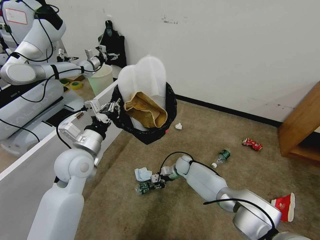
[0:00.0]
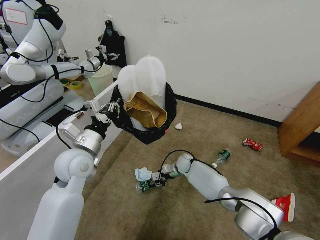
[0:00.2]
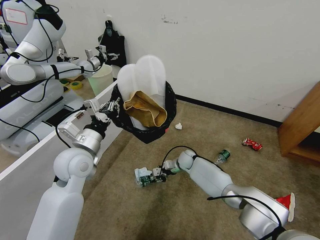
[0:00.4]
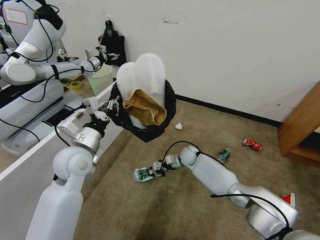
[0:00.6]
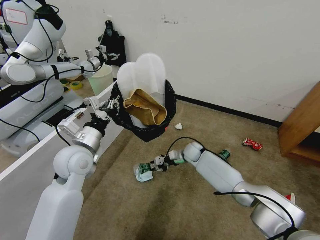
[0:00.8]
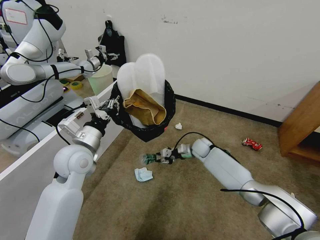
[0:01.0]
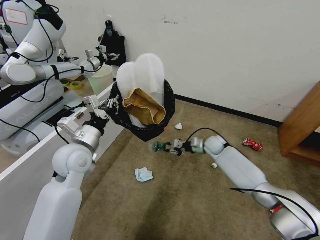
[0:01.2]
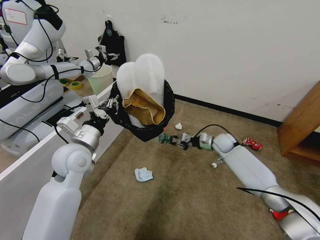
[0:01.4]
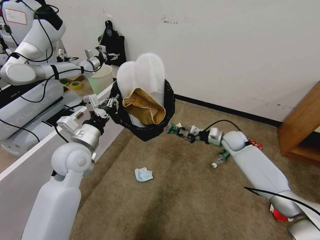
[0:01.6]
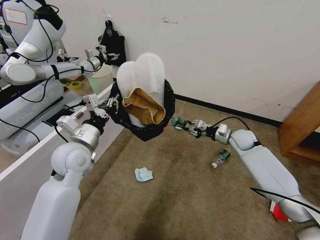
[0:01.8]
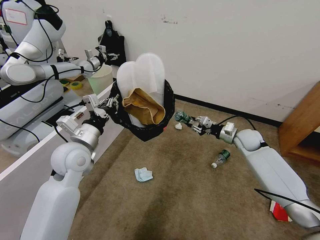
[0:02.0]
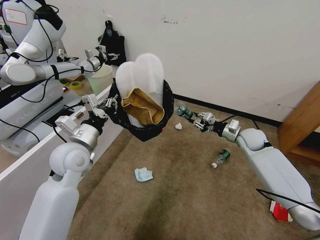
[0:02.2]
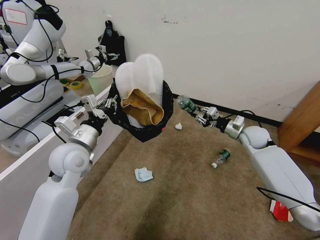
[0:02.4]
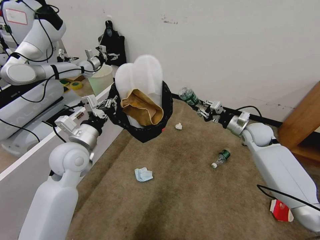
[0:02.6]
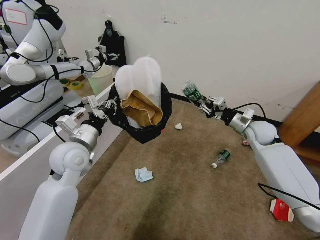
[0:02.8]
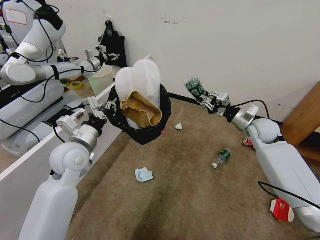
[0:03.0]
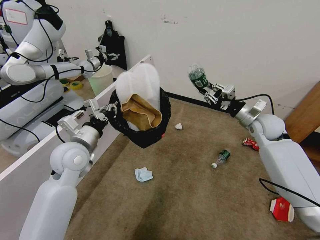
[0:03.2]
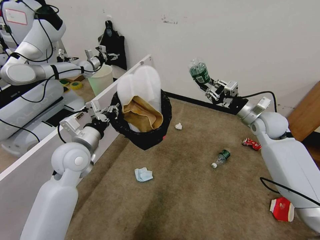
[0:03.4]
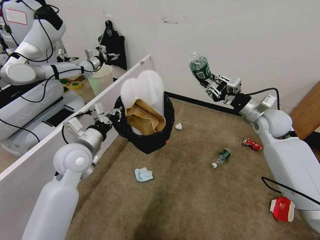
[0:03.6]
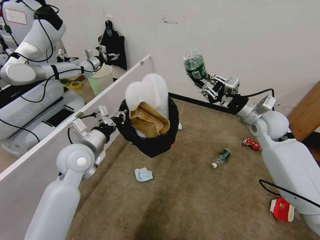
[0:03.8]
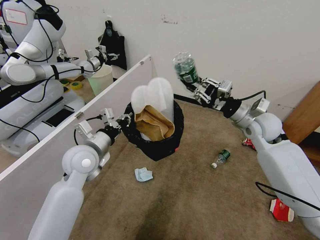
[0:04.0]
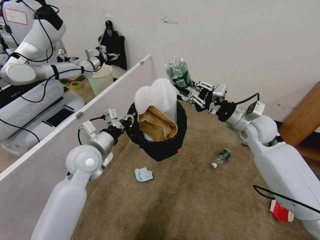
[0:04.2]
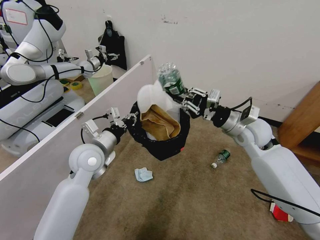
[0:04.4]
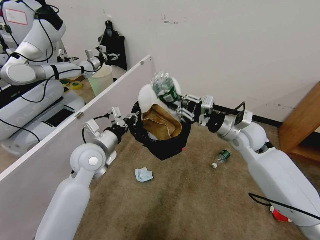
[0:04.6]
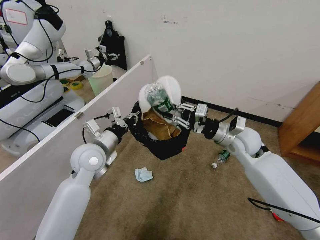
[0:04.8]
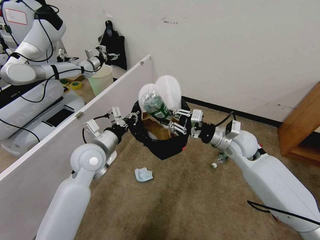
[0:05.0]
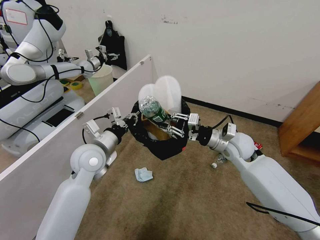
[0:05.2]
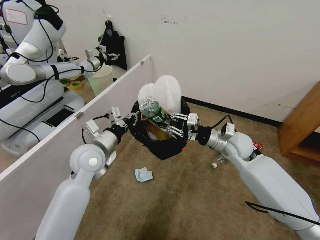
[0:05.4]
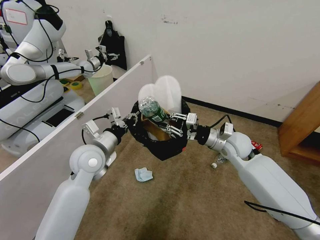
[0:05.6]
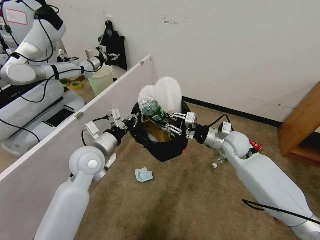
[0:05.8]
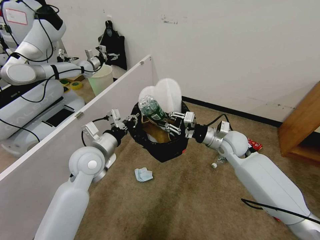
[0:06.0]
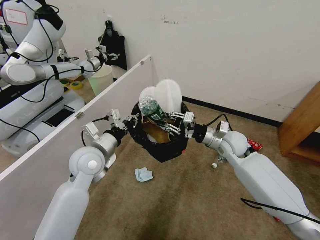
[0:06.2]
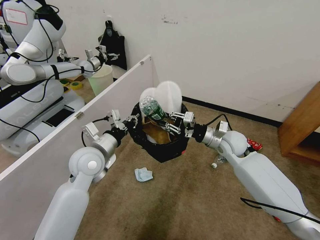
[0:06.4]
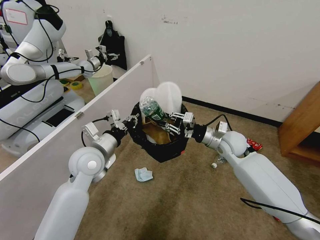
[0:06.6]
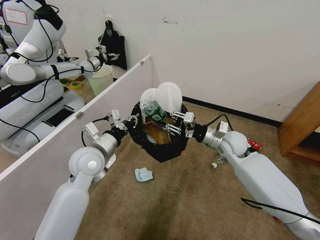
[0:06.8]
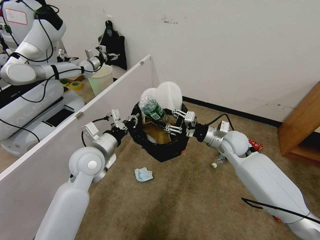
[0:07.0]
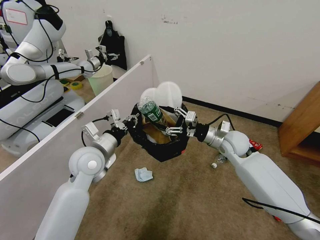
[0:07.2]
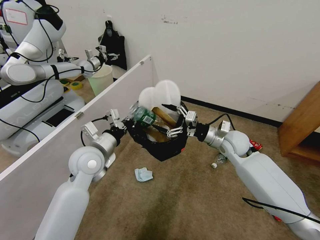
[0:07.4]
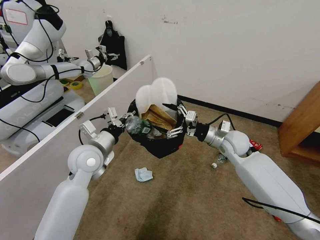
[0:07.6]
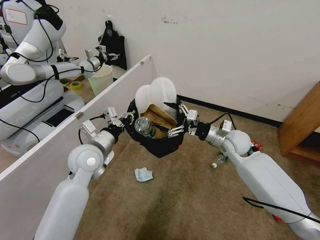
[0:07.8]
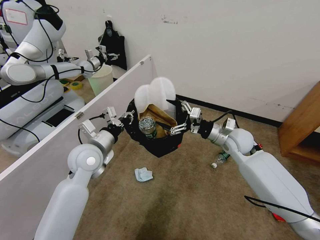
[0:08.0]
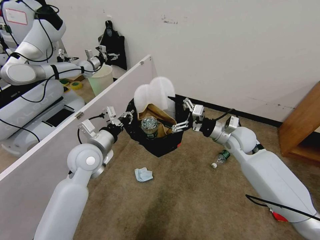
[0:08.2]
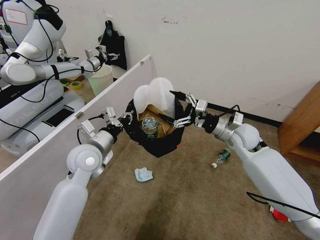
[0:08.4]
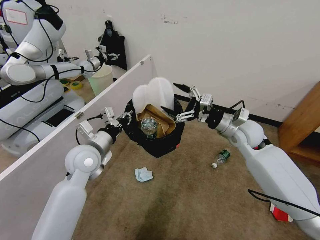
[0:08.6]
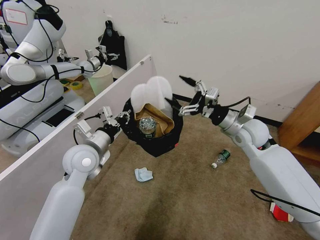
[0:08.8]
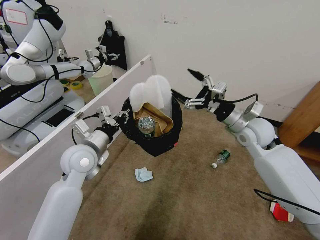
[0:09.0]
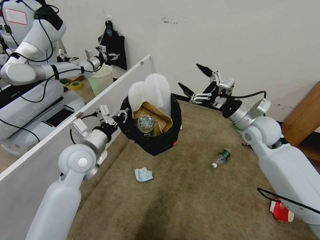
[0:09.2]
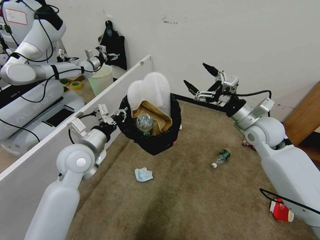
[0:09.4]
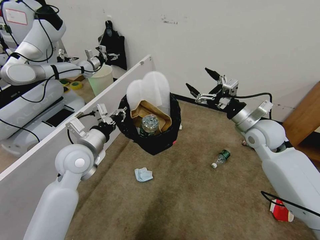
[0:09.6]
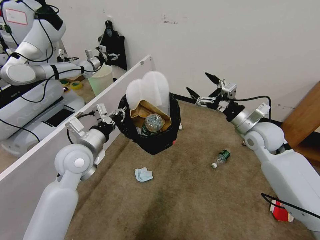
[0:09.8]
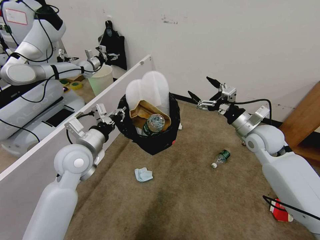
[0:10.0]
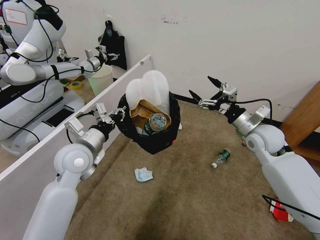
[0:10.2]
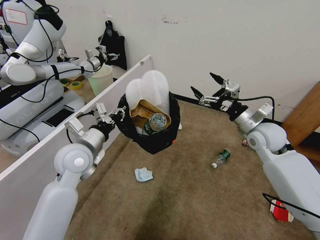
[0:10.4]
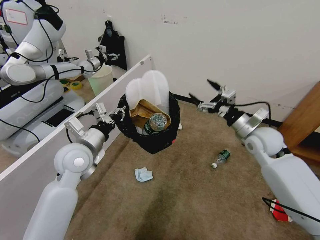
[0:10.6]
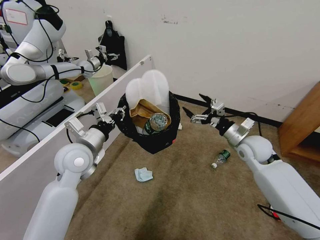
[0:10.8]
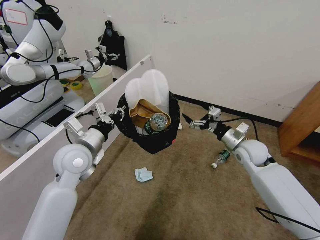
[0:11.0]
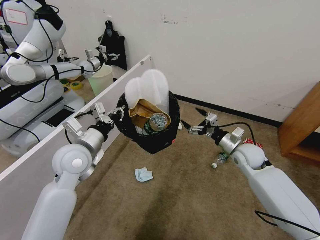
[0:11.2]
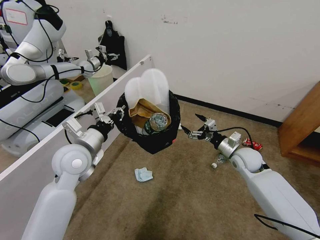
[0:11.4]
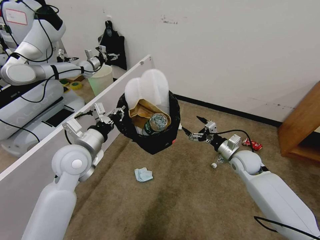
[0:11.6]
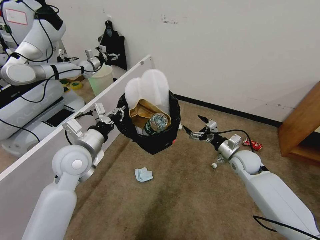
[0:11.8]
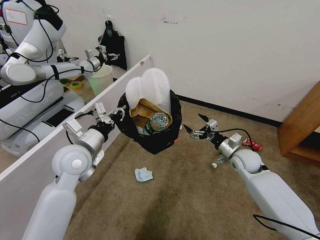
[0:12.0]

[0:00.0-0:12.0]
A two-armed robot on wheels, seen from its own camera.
Task of the whole recording: Pick up the trash bin, then pick up the garbage from the floor and place it into the trash bin.
0:00.0 to 0:01.6: The right gripper is displaced to the right and upward by some 25 cm.
0:01.6 to 0:03.0: The right gripper moves upward, roughly 10 cm.
0:03.0 to 0:04.4: The right gripper heads to the left and backward, covering approximately 10 cm.
0:04.4 to 0:06.0: The right gripper shifts roughly 5 cm downward.
0:06.0 to 0:07.6: The right gripper opens its fingers.
0:07.6 to 0:09.0: The right gripper goes roughly 5 cm upward.
0:09.0 to 0:10.4: The grippers move only a little.
0:10.4 to 0:12.0: The right gripper goes about 15 cm downward.

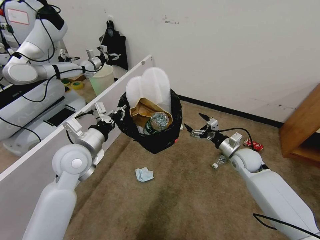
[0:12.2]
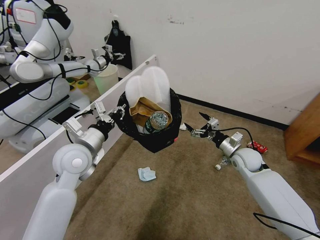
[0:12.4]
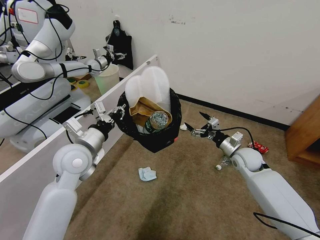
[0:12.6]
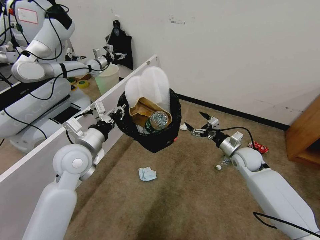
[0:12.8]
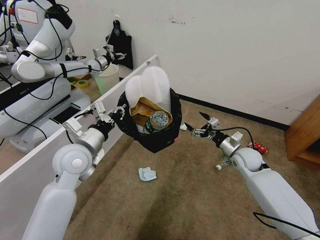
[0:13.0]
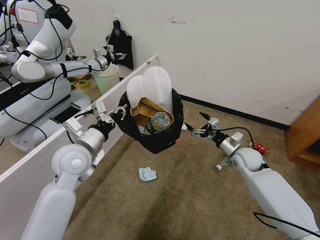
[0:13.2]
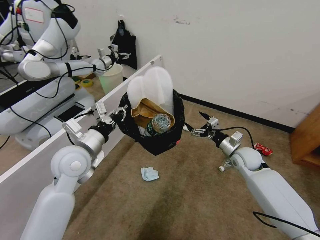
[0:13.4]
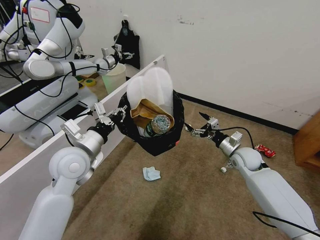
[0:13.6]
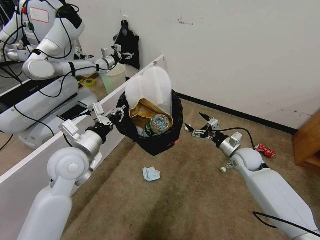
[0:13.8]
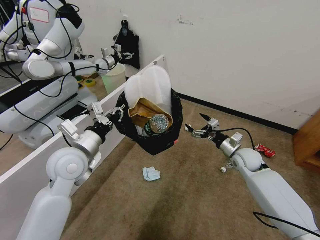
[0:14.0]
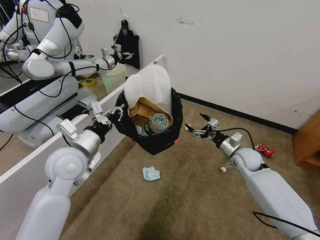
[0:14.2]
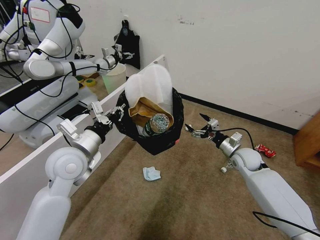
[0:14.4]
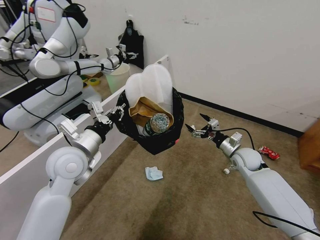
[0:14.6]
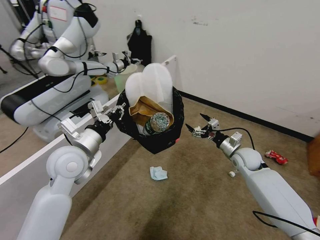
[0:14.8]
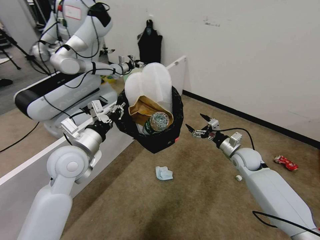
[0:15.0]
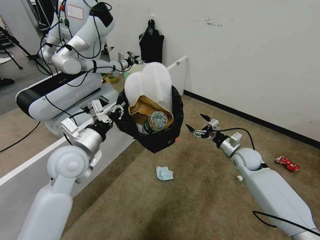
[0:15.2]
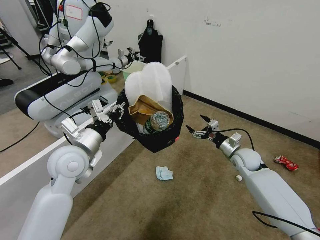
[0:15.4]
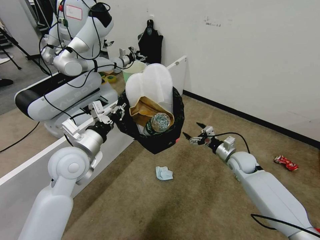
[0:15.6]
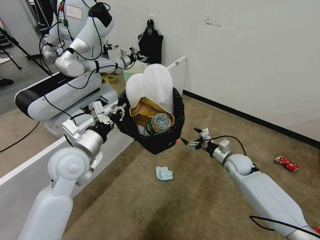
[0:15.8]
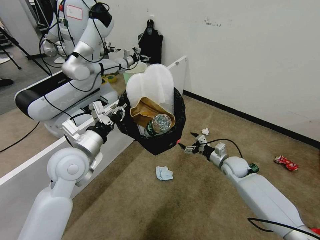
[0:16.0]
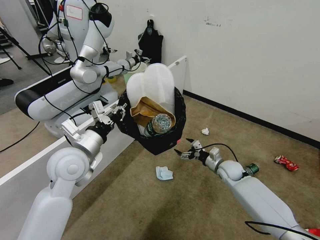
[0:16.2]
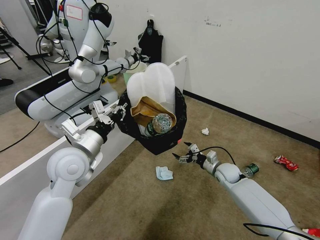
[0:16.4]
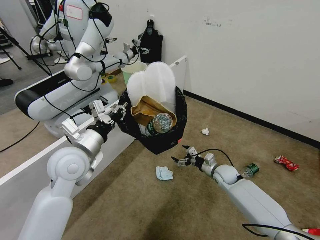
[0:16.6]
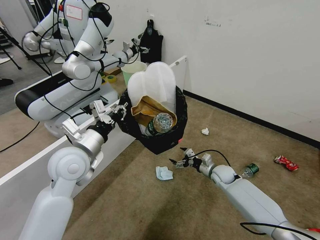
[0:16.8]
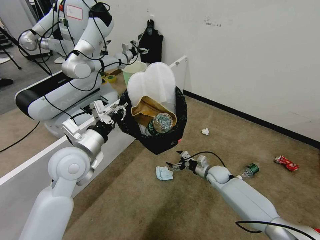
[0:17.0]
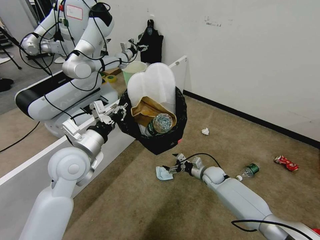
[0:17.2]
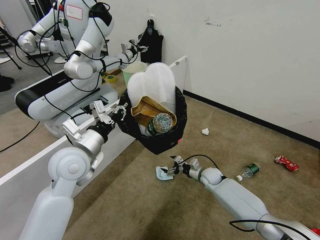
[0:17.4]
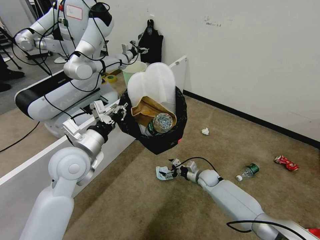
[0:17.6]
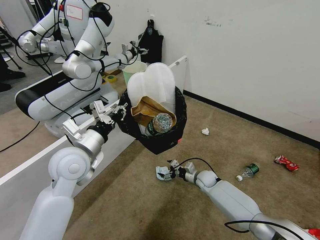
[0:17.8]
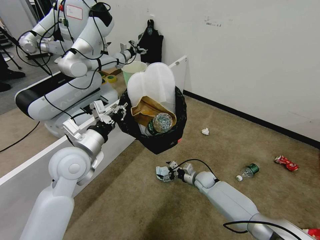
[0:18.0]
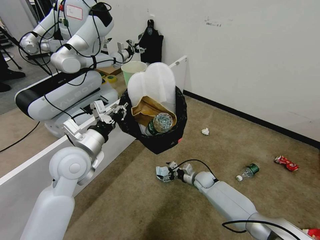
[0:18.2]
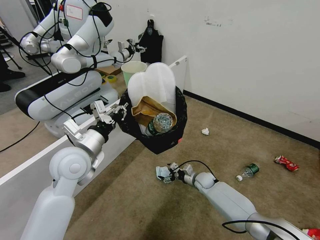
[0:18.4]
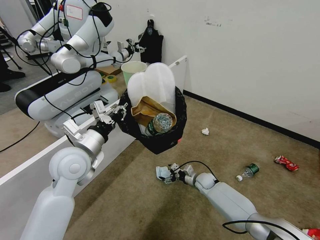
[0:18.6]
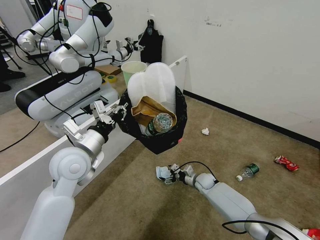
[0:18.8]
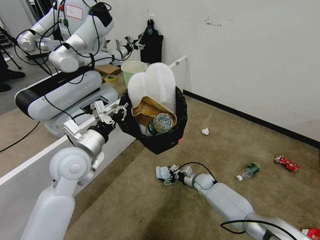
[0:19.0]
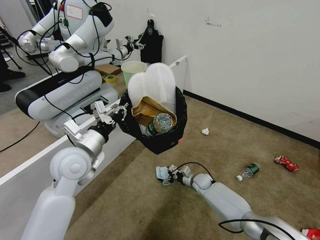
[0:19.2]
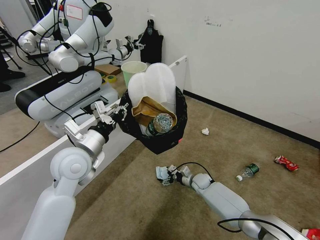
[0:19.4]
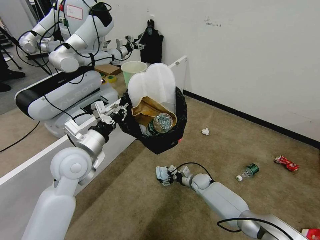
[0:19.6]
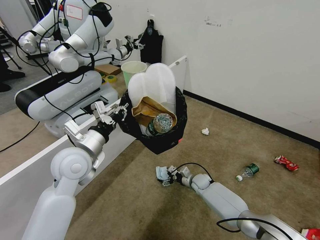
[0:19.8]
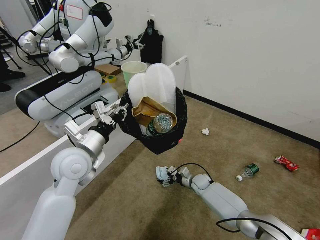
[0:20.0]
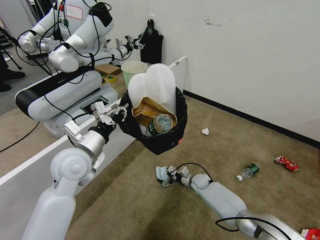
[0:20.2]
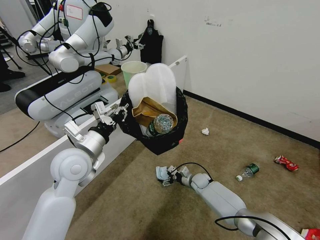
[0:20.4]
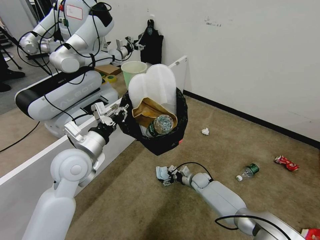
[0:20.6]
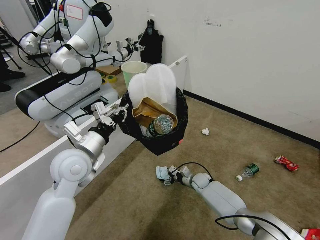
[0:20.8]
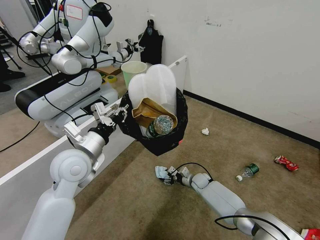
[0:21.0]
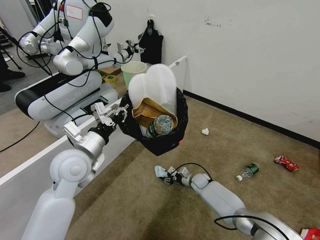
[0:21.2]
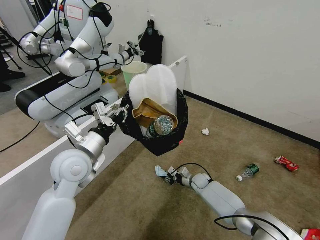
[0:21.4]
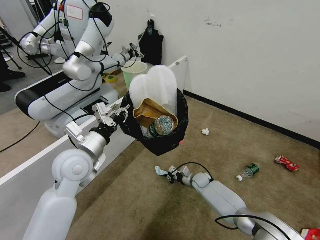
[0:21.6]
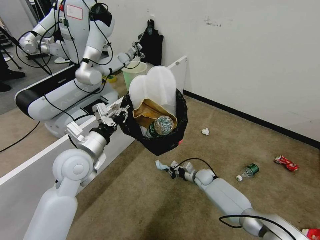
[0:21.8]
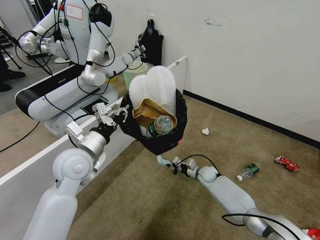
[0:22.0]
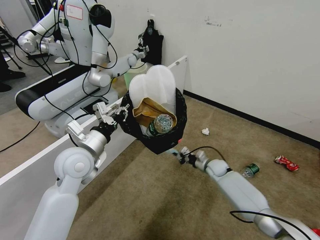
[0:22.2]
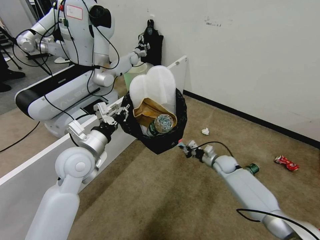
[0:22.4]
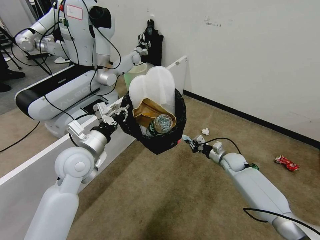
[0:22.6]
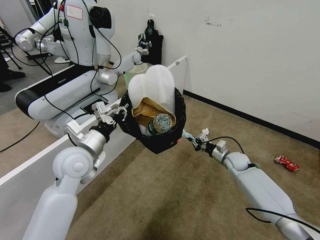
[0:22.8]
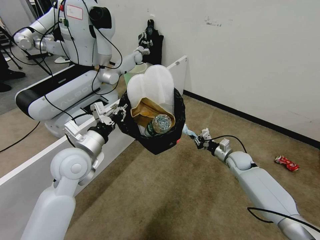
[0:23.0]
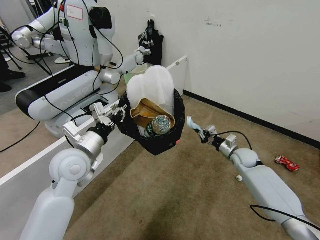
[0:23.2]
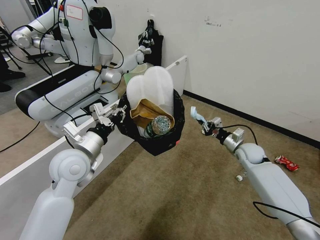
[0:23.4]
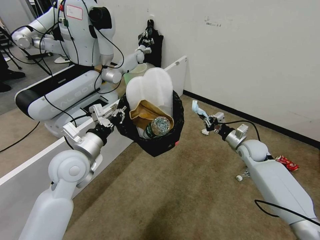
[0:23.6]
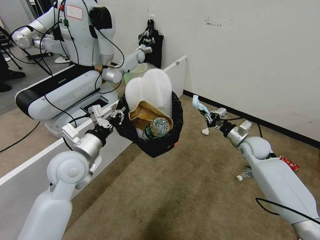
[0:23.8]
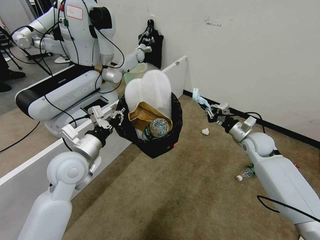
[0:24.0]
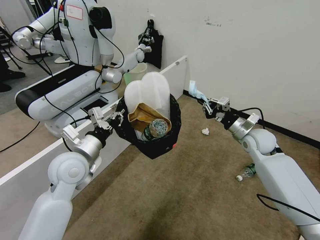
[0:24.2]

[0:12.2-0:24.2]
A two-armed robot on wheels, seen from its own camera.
Task of the whole recording: Pick up the trash bin, then pick up the garbage from the floor and place it into the trash bin.
0:15.2 to 0:16.6: The right gripper goes some 10 cm downward and to the left.
0:16.6 to 0:18.2: The right gripper is displaced downward and to the left by approximately 10 cm.
0:18.2 to 0:19.8: The grippers move only a little.
0:19.8 to 0:21.2: The right gripper closes up.
0:21.2 to 0:22.6: The right gripper goes some 20 cm upward and to the right, and closes its fingers.
0:22.6 to 0:24.2: The right gripper is displaced upward by about 15 cm.
